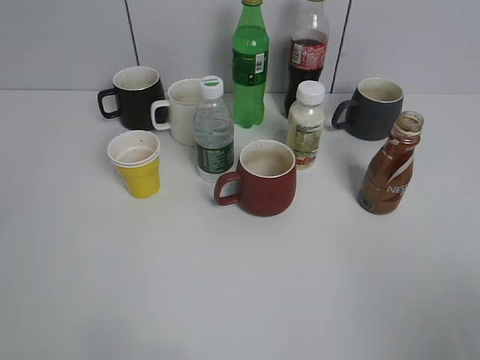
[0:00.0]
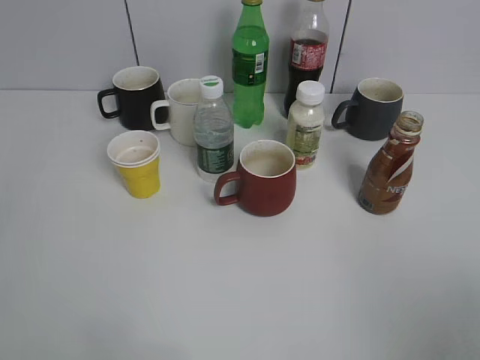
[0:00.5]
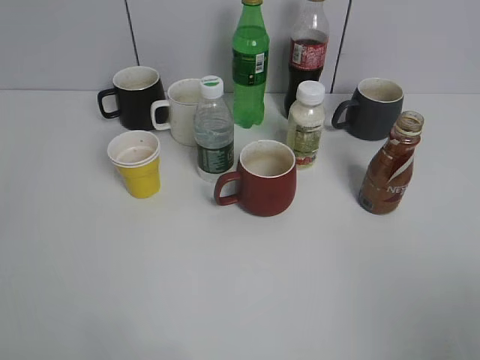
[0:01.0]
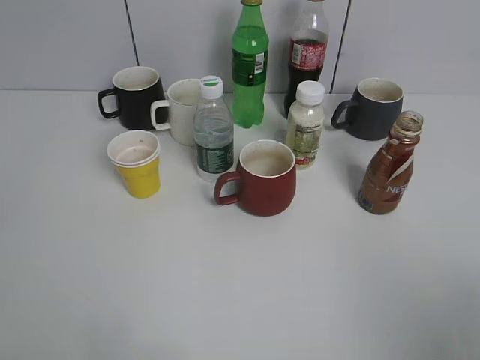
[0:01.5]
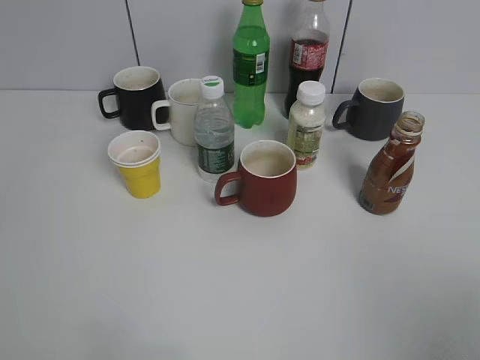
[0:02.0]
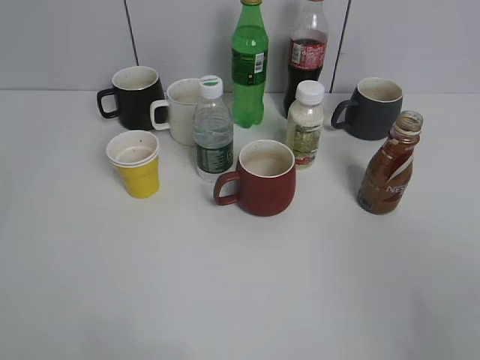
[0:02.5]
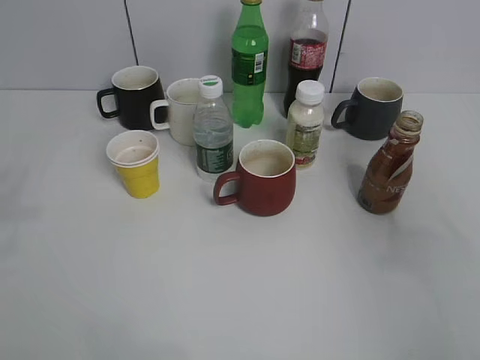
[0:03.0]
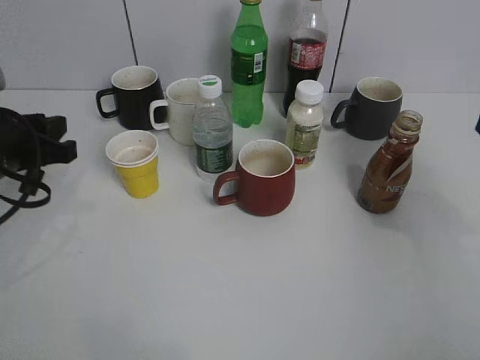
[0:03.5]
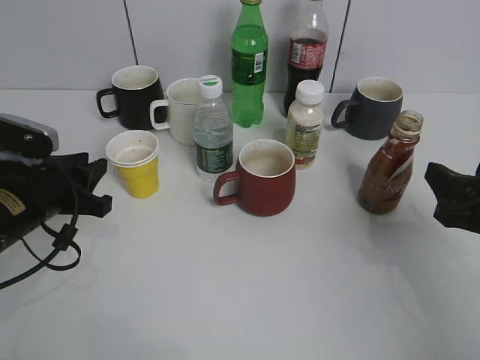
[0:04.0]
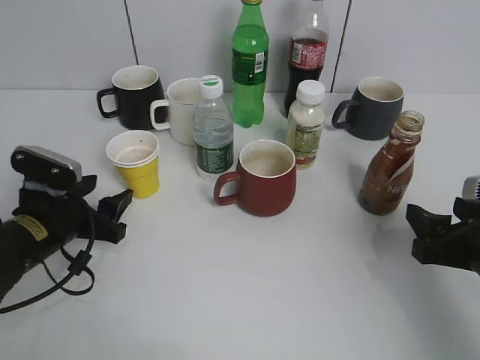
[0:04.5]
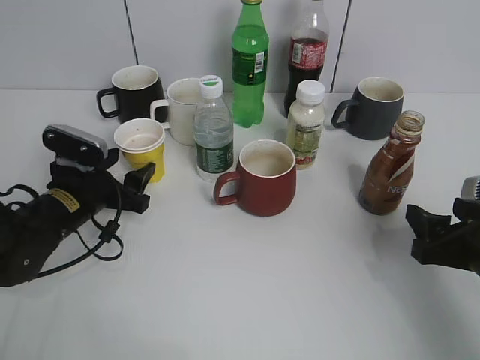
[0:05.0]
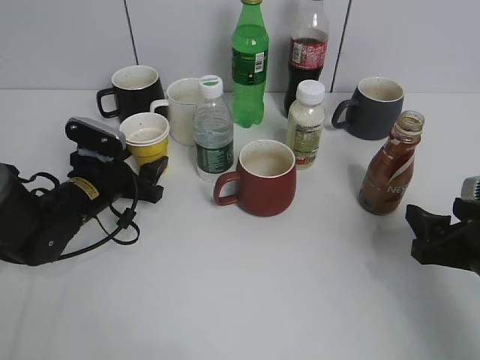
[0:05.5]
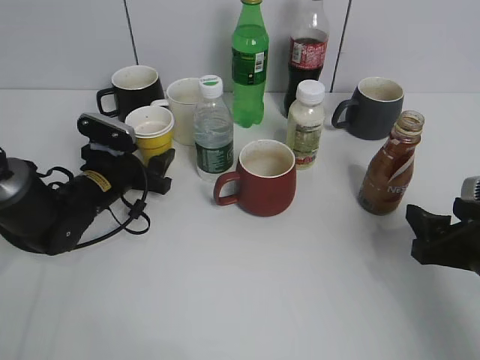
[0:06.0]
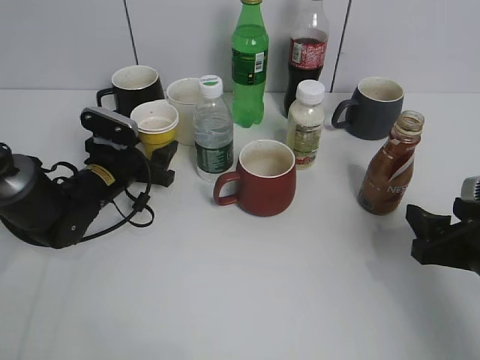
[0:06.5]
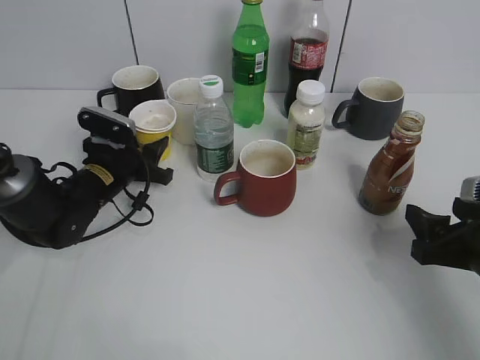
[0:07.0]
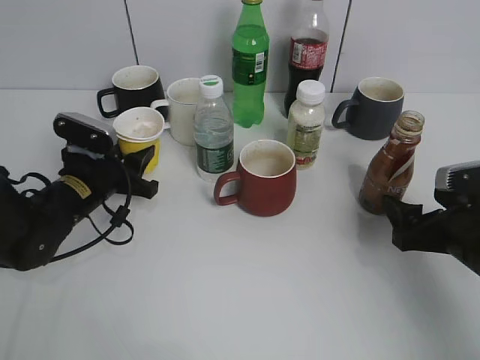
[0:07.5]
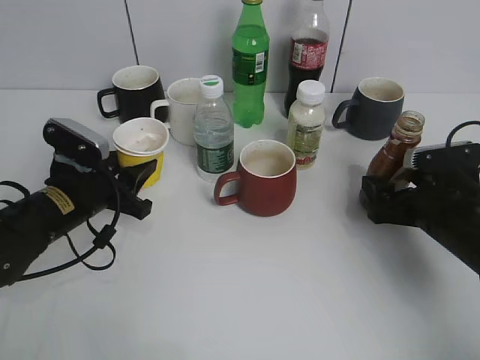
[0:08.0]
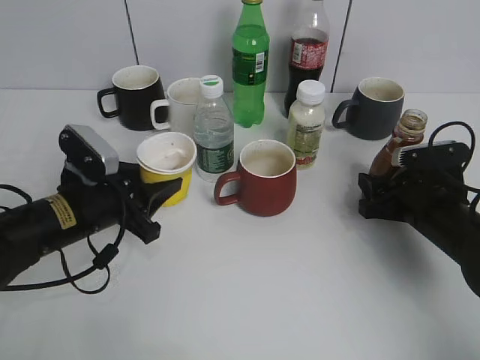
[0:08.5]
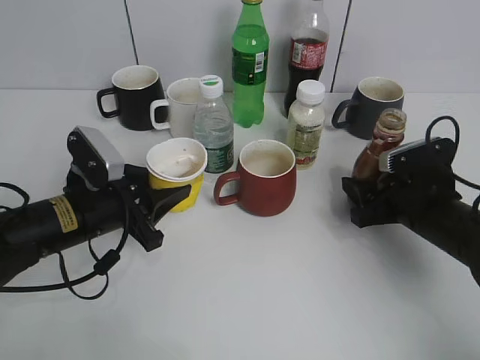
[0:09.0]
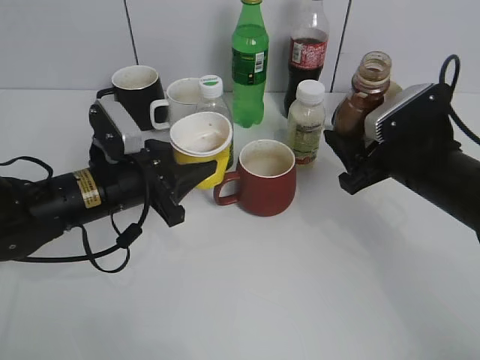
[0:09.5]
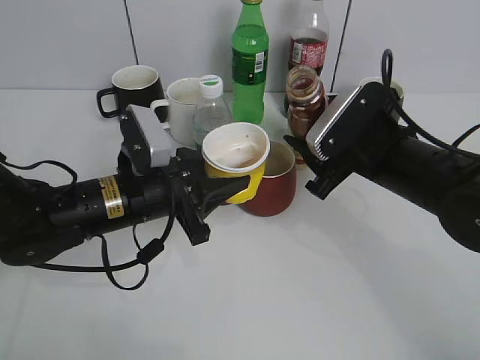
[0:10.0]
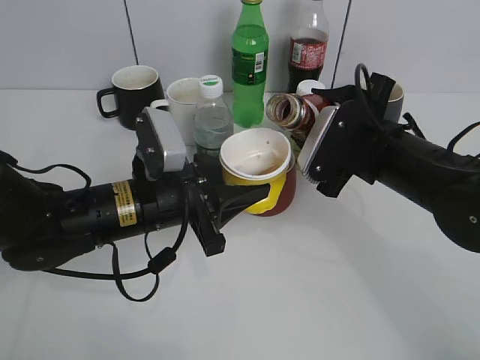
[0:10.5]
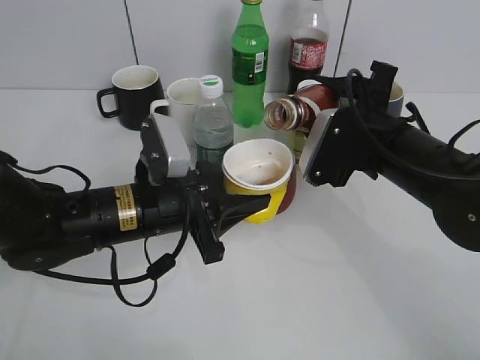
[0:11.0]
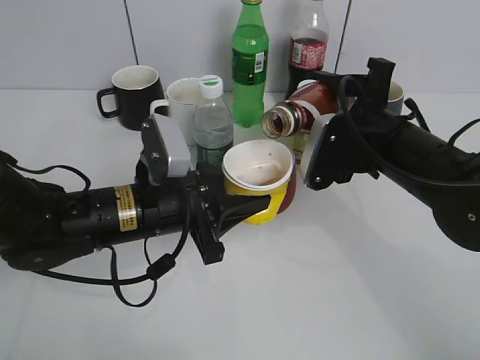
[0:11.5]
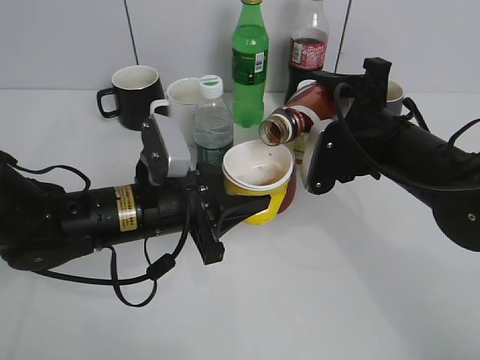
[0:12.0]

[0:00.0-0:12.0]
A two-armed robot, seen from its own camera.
Step, 0:01.5 to 0:06.5: Grasp the yellow paper cup with left gripper.
Step, 0:07.5 to 0:08.5: Grasp the bottle with coffee with right gripper.
0:02.0 to 0:04.0: The two grippers go approximately 30 cm forward and downward.
0:04.0 to 0:06.0: The left gripper is displaced forward and downward by roughly 10 cm, and opens up, while the right gripper heads downward, covering roughly 5 cm.
0:06.0 to 0:08.0: The right gripper heads forward, covering about 5 cm, and opens its fingers; the left gripper heads backward, covering about 5 cm, and closes up.
0:08.0 to 0:10.0: The left gripper goes about 10 cm to the right. Meanwhile the right gripper shifts some 10 cm to the left and upward, and closes up.

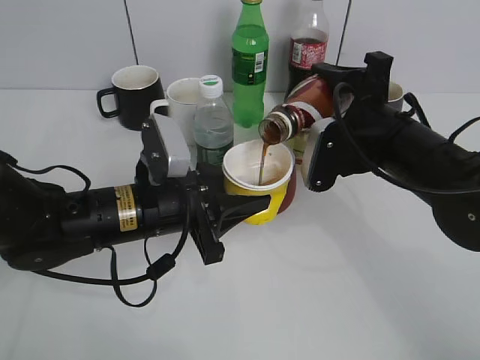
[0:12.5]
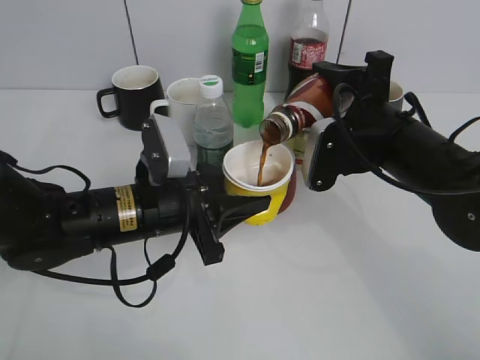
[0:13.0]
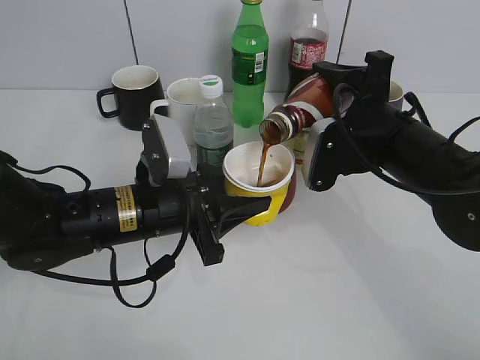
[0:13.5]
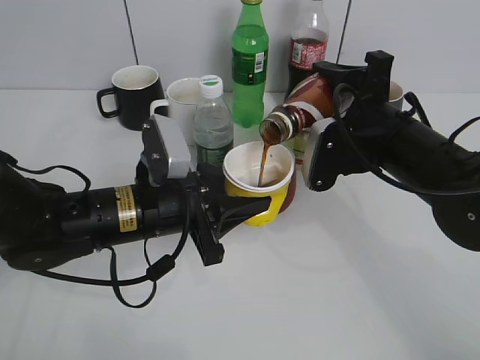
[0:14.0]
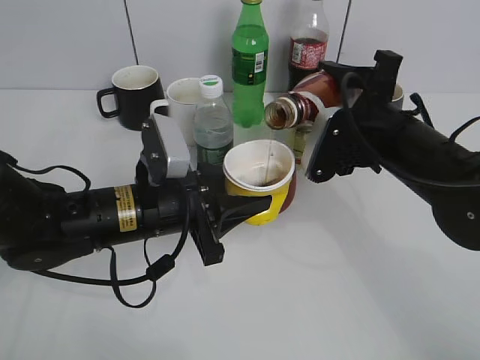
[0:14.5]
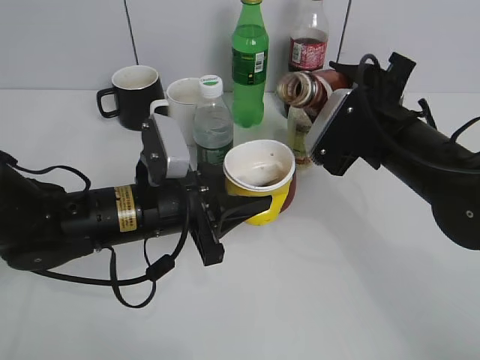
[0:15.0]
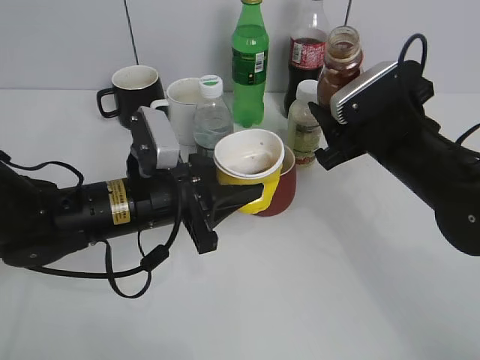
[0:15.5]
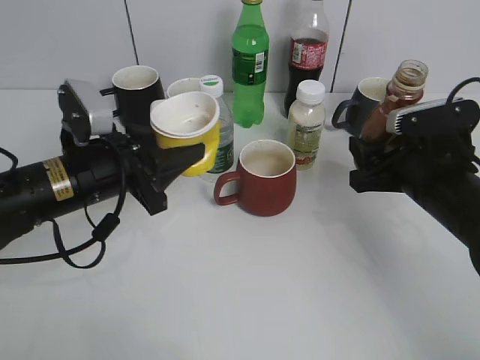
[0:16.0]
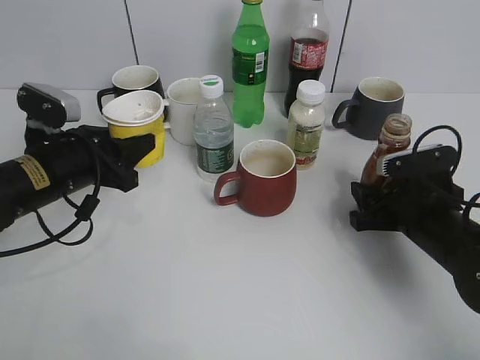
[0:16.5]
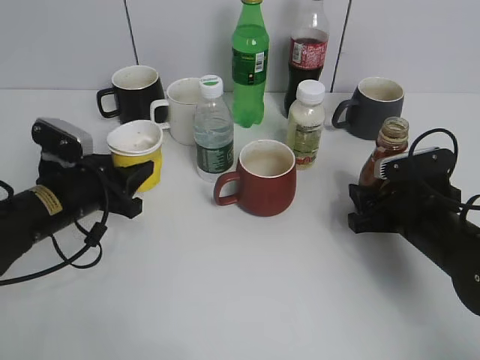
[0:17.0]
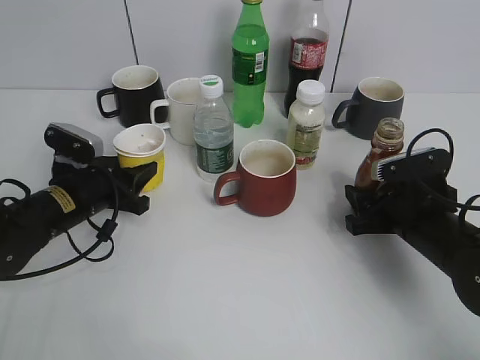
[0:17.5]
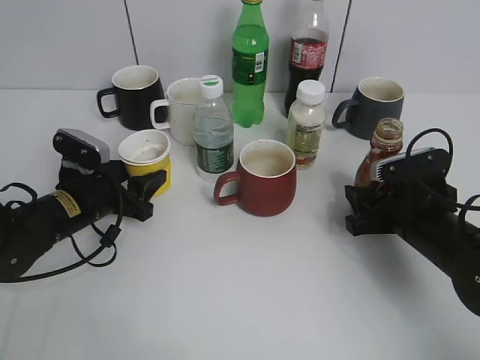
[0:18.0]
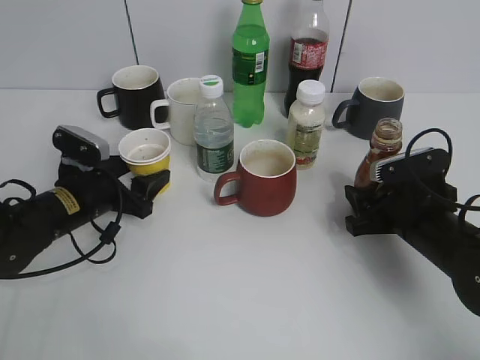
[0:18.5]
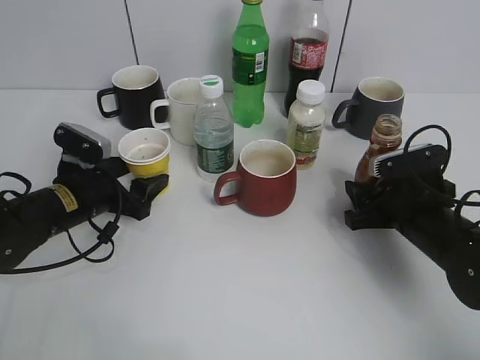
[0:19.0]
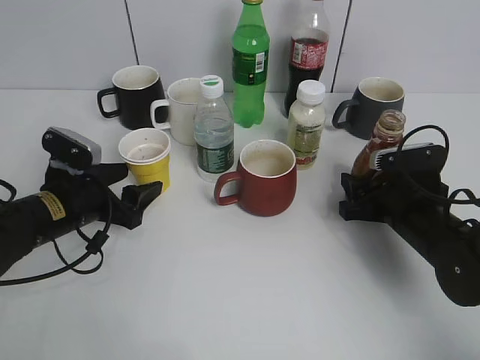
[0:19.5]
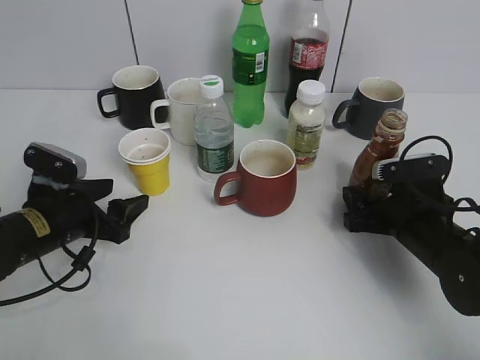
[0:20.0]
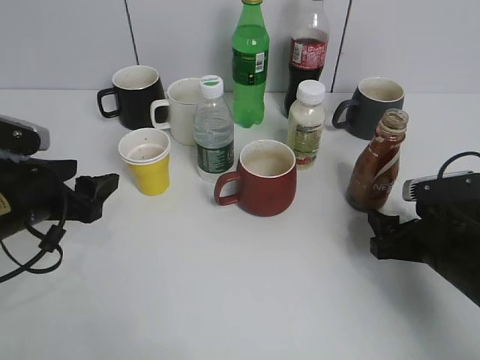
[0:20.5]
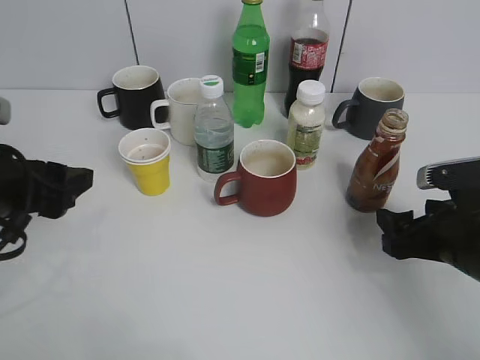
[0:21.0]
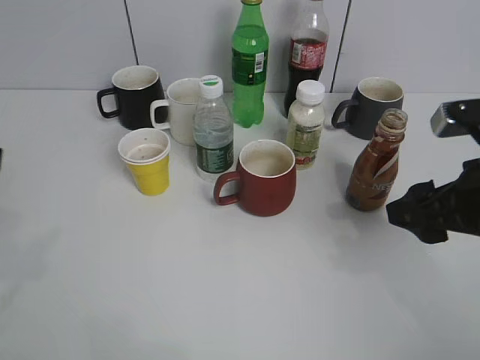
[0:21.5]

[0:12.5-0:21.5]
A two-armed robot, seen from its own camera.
Step, 0:12.5 to 0:15.5: Pour the coffee from bottle to cup with right gripper.
Step, 0:16.0 to 0:20.0: Place the coffee bottle on the table with right gripper.
0:12.5 to 0:14.5: The grippers stay close to where they were, moving slightly.
0:14.5 to 0:17.0: The left gripper is displaced to the left by roughly 10 cm. Meanwhile the right gripper moves downward and to the right, about 10 cm.
0:17.0 to 0:19.5: The left gripper opens up.
0:19.5 to 0:21.5: The left gripper heads upward and backward, covering roughly 25 cm, while the right gripper moves upward and backward, about 15 cm, and opens its fingers.

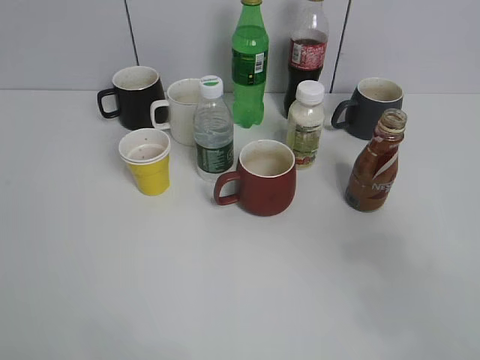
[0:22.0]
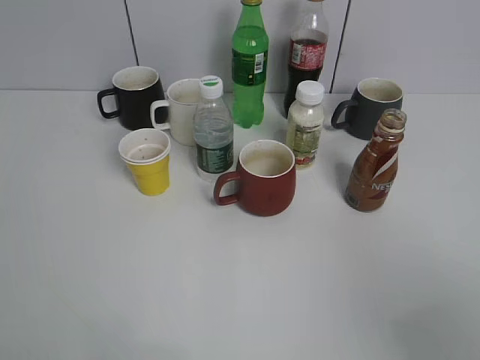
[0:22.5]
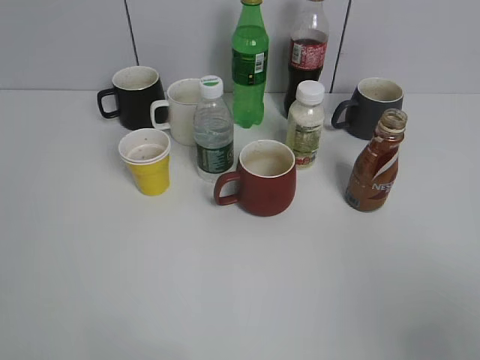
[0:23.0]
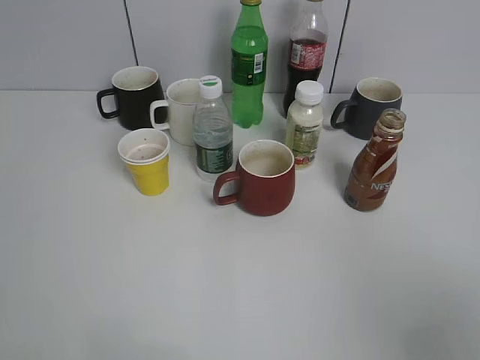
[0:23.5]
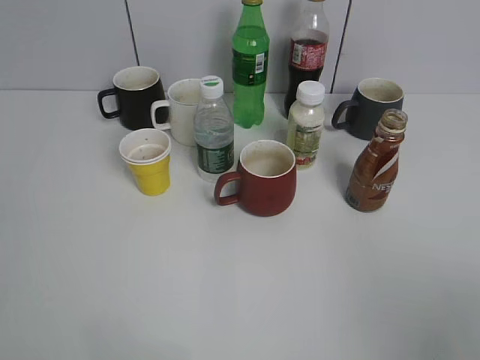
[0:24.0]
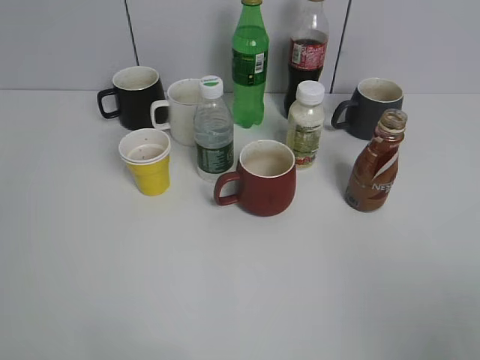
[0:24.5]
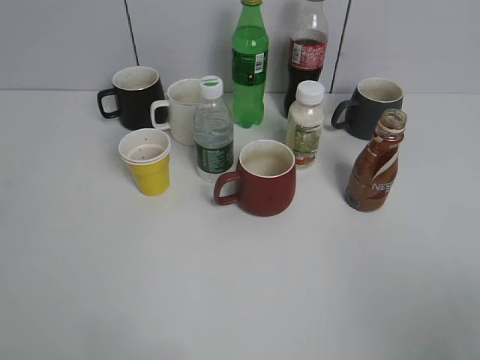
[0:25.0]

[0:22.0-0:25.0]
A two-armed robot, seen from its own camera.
0:22.0 to 0:23.5: The right gripper heads backward, covering about 10 cm.
